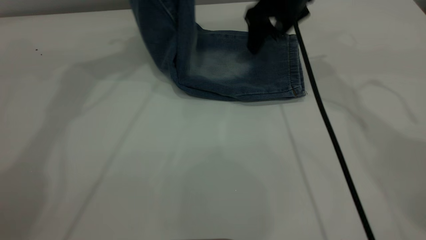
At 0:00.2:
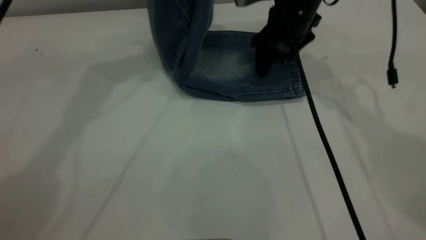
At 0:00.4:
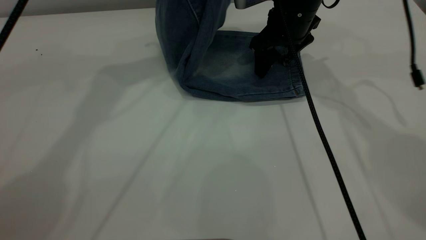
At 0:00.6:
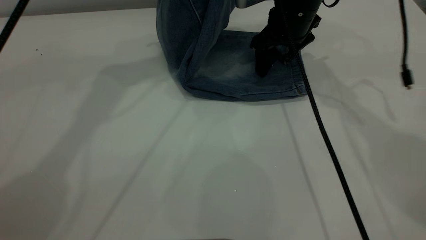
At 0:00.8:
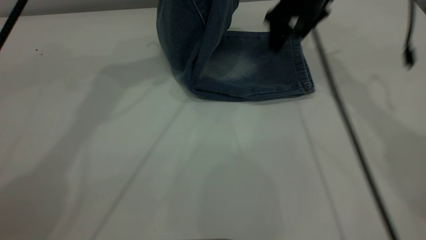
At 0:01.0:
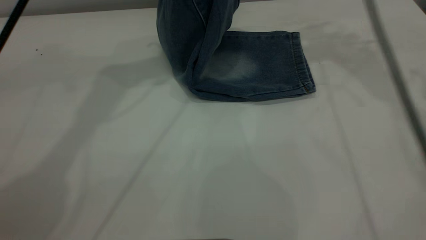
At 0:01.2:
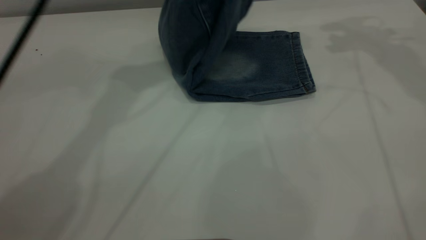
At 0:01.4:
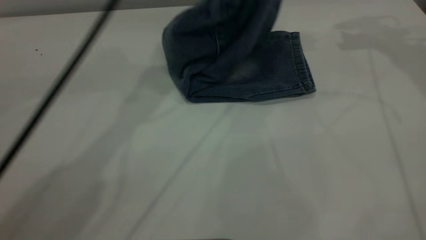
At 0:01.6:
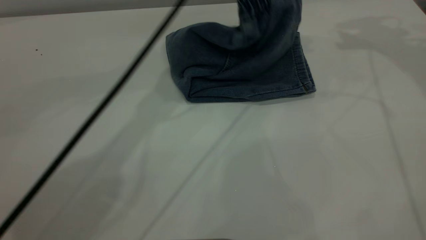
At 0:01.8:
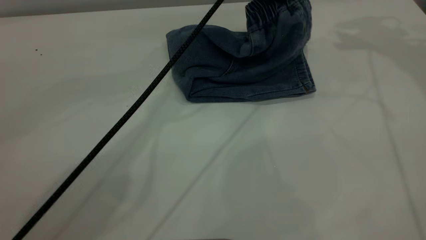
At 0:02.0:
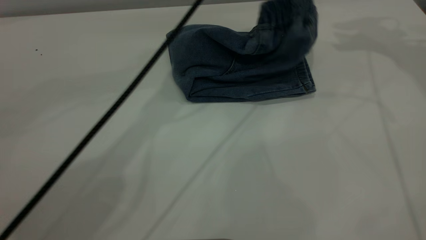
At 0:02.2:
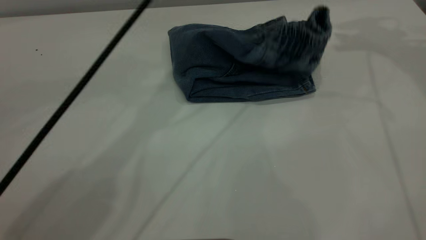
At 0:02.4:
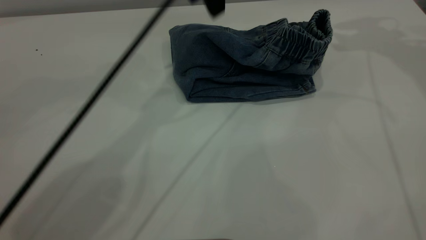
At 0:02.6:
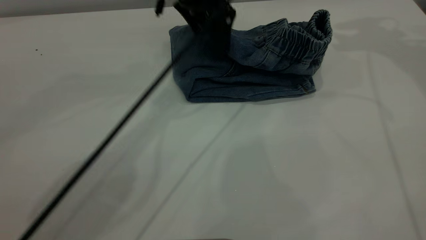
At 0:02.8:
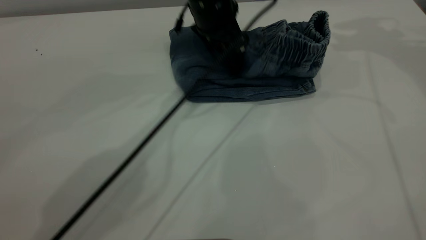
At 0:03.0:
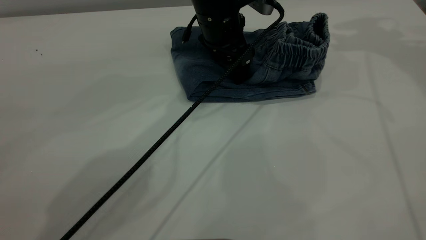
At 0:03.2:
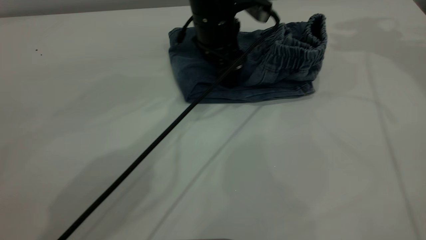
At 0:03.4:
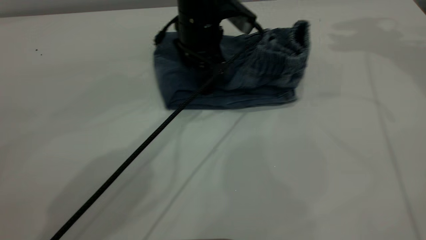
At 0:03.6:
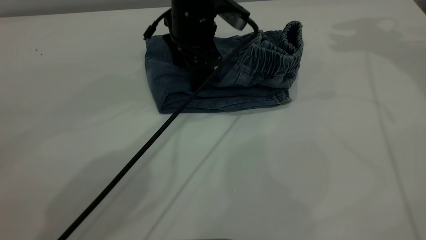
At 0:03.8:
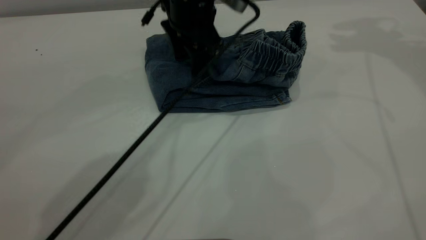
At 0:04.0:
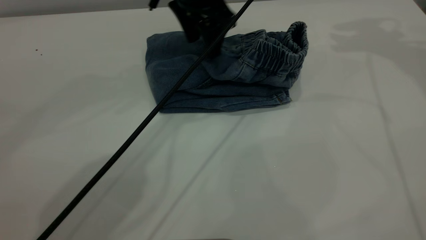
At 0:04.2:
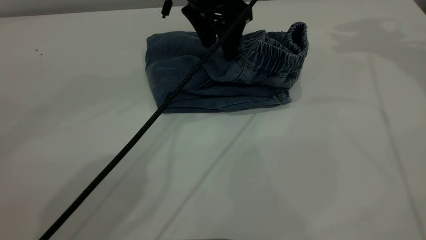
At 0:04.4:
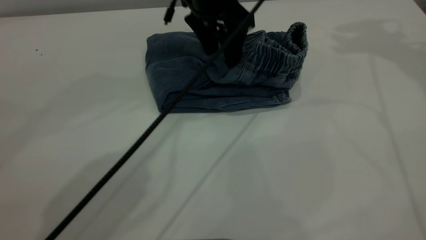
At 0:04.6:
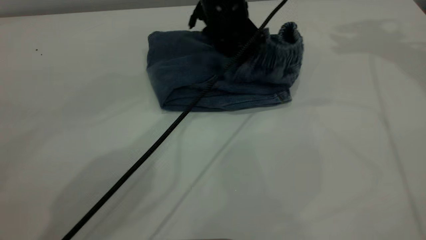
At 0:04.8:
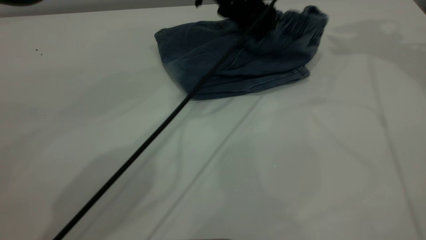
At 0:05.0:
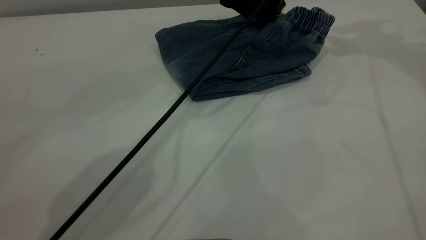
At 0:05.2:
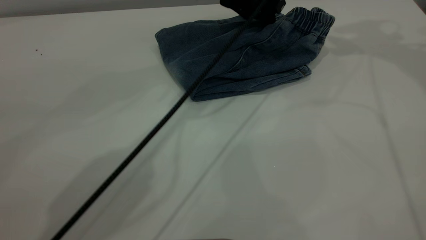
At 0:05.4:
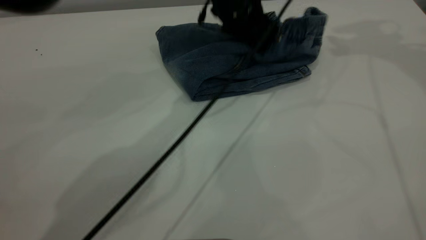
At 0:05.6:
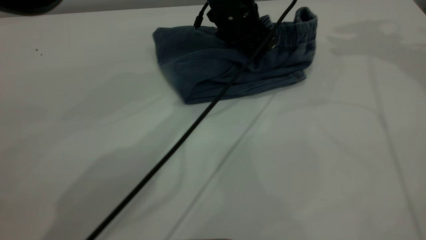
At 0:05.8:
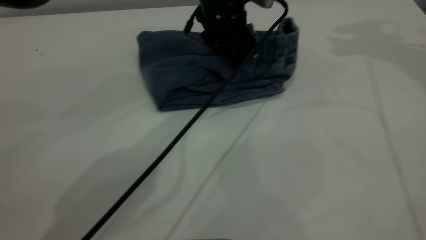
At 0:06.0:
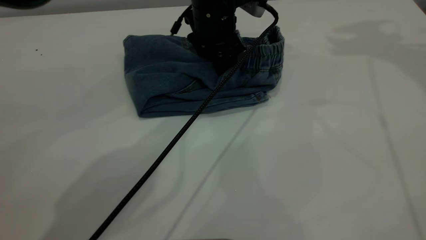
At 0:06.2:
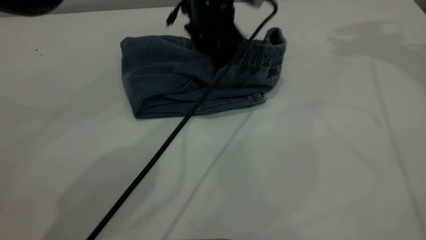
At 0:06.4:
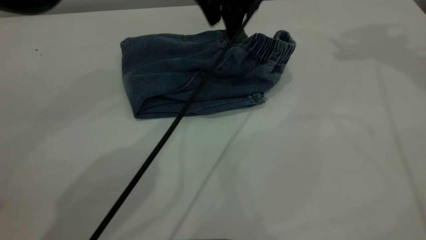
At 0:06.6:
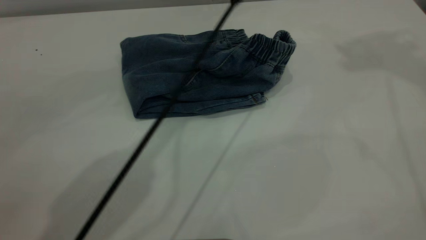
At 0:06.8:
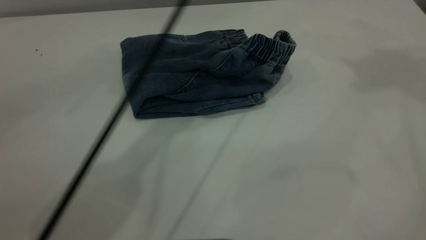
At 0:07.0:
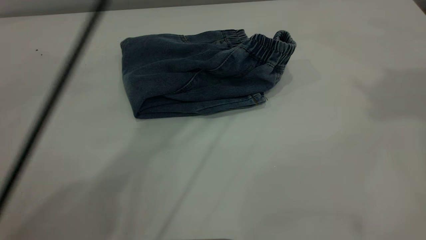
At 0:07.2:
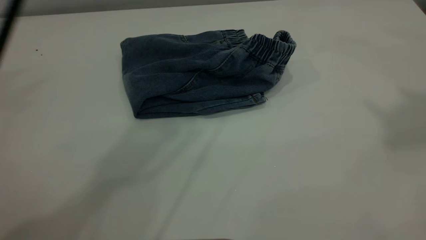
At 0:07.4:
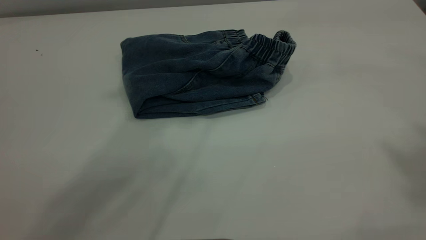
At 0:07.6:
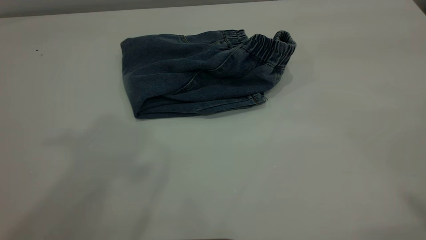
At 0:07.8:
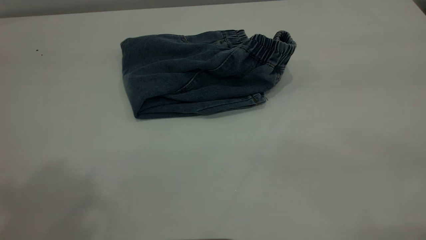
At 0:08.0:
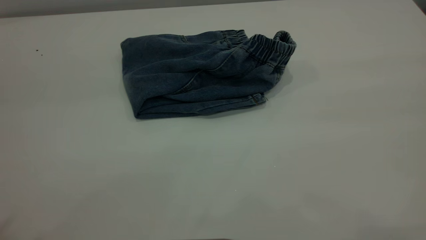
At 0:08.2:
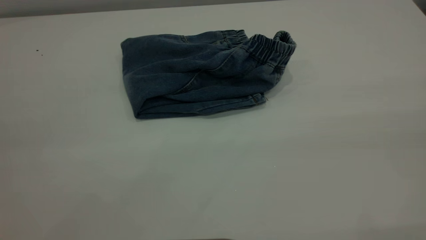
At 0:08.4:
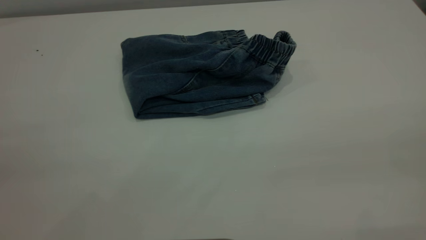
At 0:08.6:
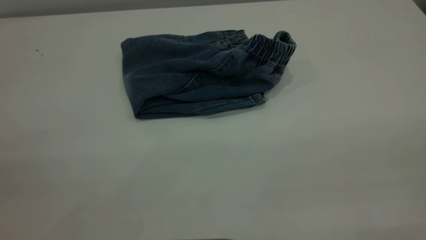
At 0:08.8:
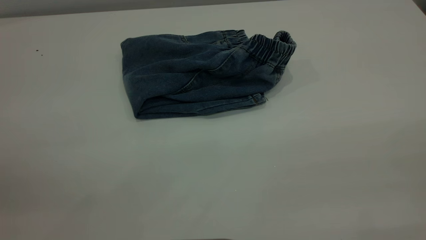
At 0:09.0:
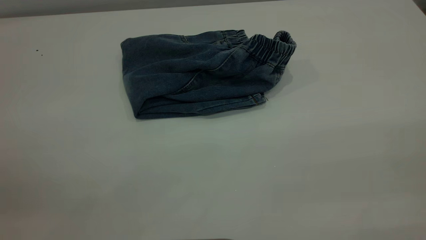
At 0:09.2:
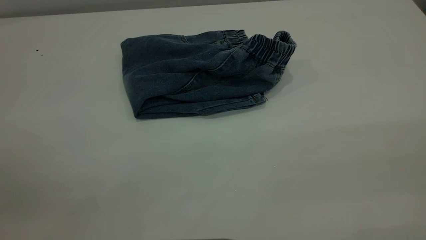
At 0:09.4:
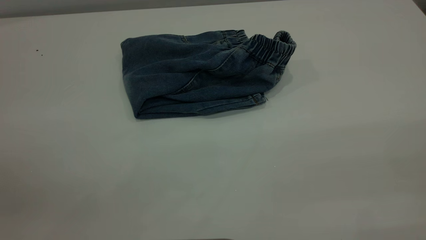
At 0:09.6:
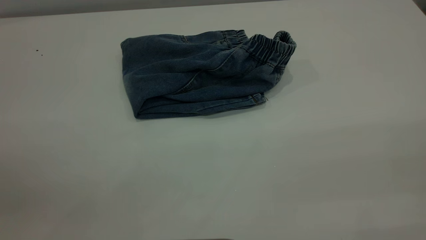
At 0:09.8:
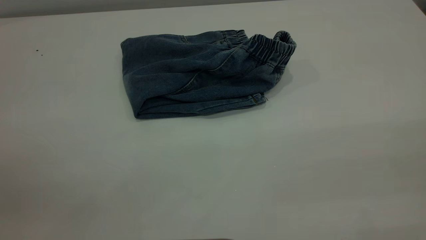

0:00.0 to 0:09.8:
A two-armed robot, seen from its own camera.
Step, 0:00.0 to 0:02.2: Fold the pants from left to right.
0:00.0 to 0:01.4: The right gripper heads to the right and upward, covering approximately 25 cm; the left gripper travels to the right and downward by some 15 cm.
0:01.4 to 0:02.8: The left gripper moves up and down over some 15 cm, changing direction 2 times, and opens its fingers.
0:02.8 to 0:04.2: The left gripper is displaced upward by about 5 cm.
0:04.2 to 0:05.6: The left gripper moves downward, about 5 cm.
0:05.6 to 0:07.0: The left gripper is displaced upward by some 30 cm. The right gripper is displaced upward and backward by approximately 25 cm.
0:07.0 to 0:08.4: The left gripper shifts some 50 cm backward and to the left.

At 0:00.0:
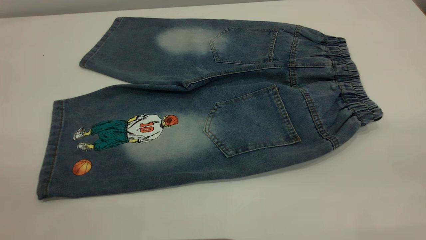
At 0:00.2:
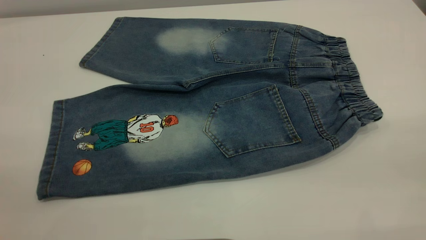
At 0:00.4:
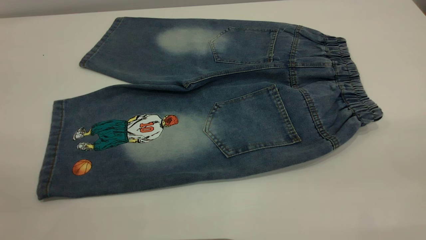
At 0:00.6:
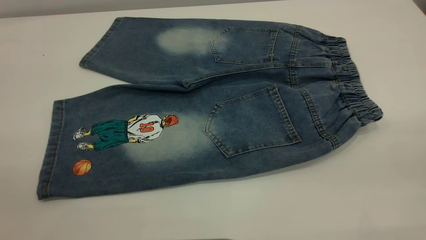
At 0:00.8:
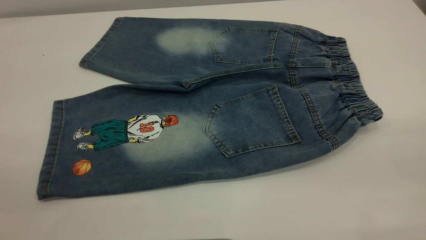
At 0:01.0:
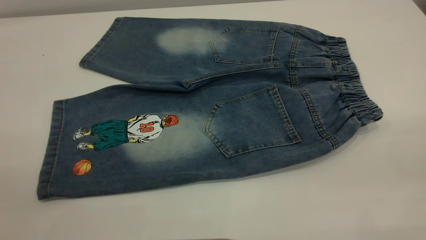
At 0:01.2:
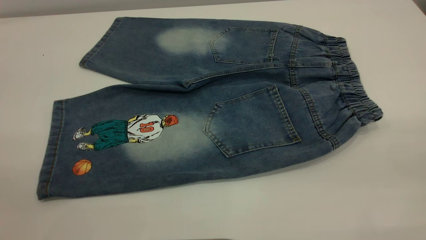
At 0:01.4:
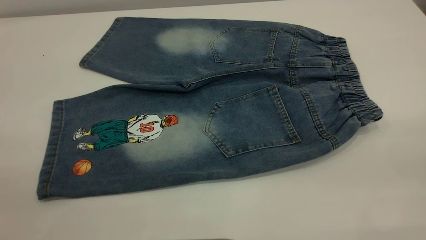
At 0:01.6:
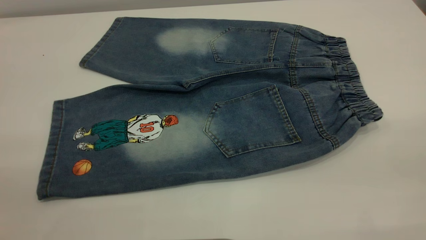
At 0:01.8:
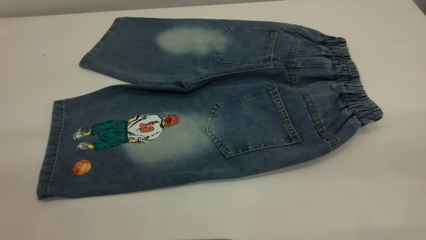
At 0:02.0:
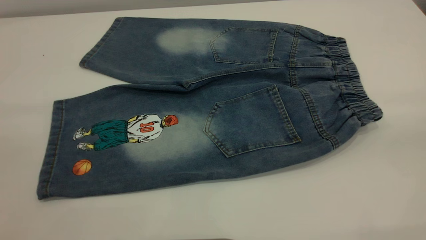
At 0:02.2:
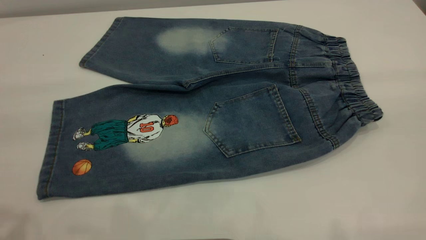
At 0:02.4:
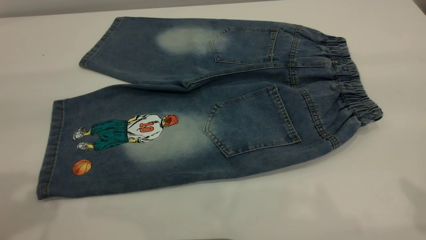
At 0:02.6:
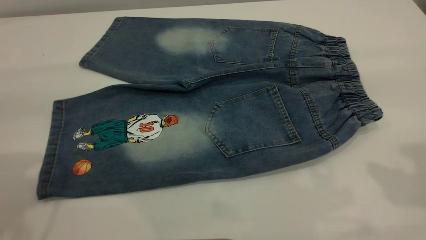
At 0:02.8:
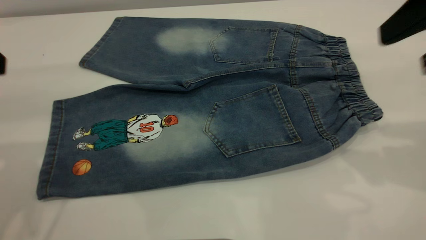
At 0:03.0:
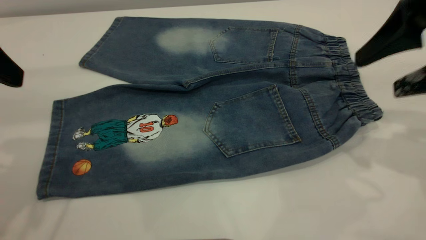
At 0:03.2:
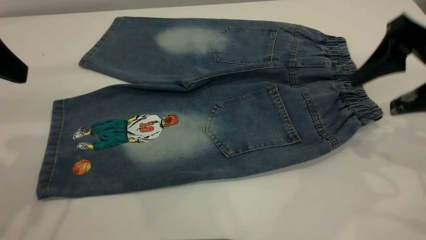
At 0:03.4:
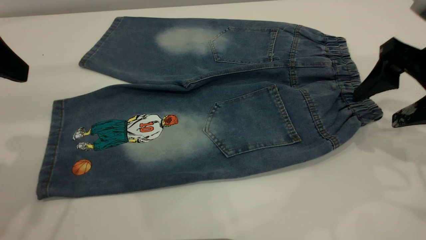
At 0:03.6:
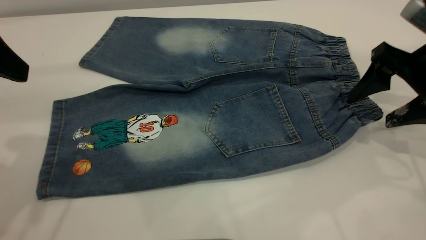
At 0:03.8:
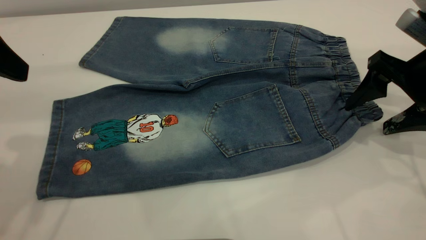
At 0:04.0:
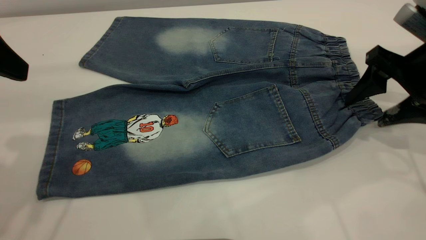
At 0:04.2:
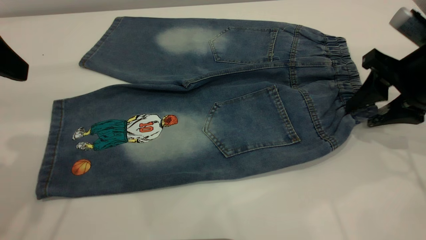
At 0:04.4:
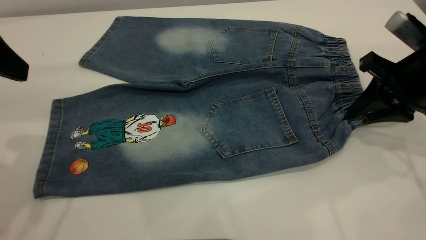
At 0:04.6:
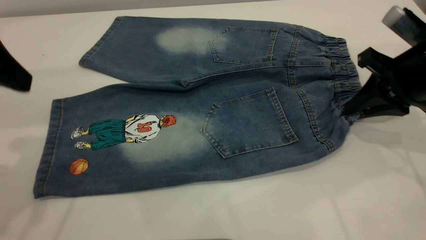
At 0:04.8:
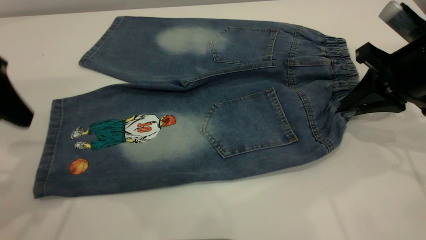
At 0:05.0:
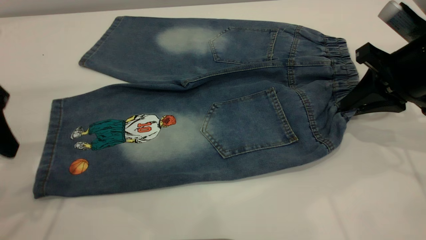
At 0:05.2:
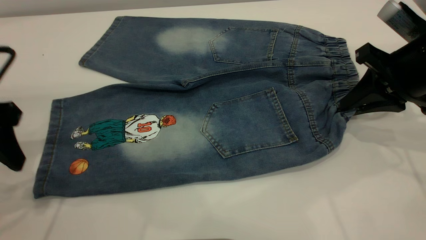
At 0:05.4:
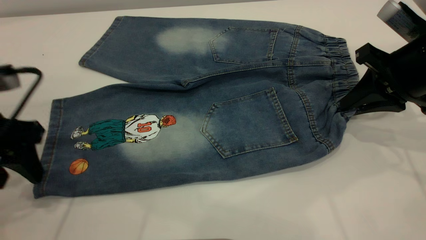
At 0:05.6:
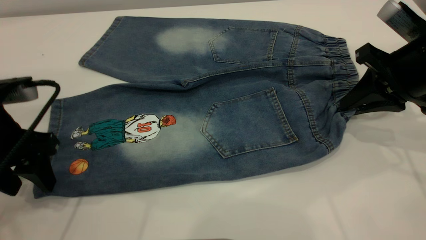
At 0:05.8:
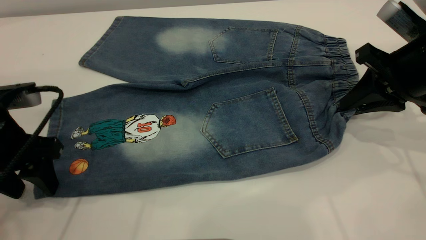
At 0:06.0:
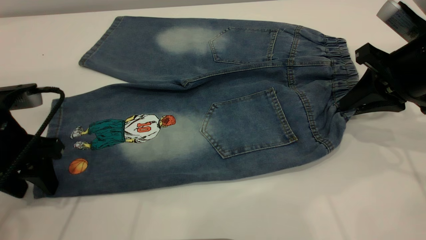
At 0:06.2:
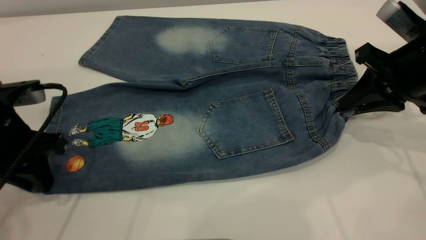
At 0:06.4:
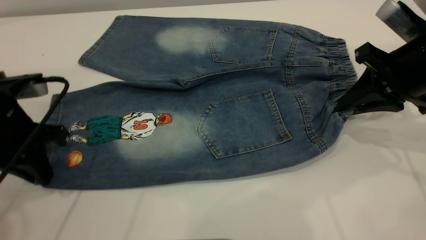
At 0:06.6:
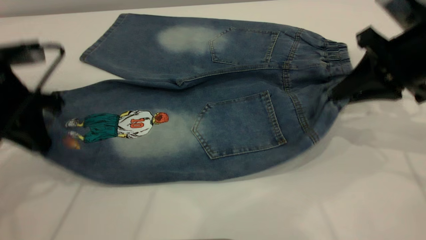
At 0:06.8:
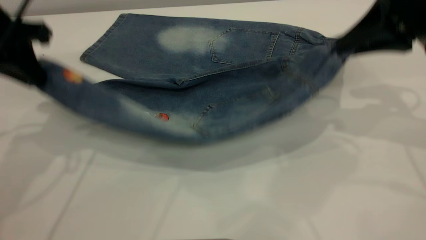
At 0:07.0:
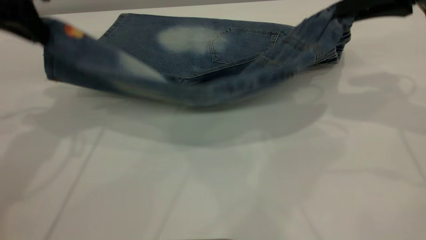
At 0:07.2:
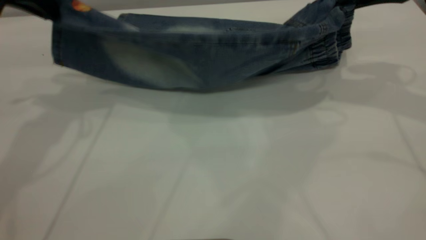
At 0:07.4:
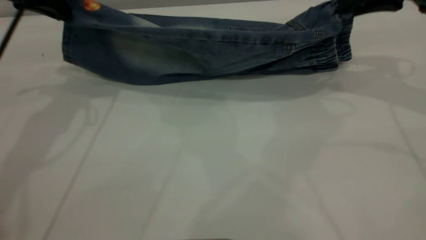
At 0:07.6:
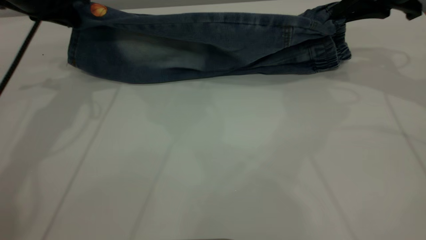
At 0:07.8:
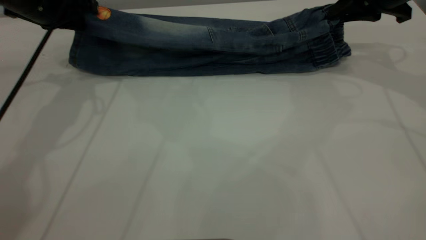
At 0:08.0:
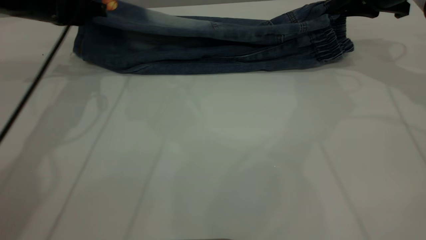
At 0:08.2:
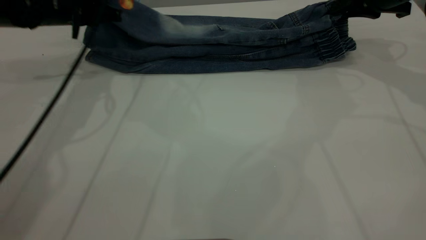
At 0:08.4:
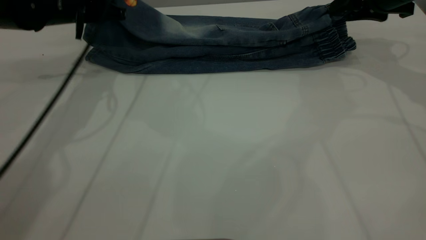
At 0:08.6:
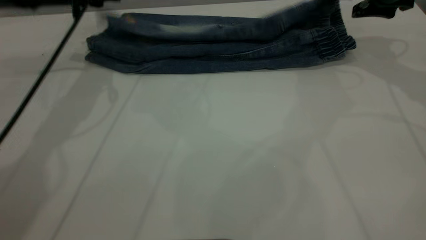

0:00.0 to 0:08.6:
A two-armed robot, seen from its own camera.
0:00.0 to 0:01.4: The two grippers keep their place.
0:01.4 to 0:02.8: The right gripper is displaced forward by about 25 cm.
0:02.8 to 0:04.4: The right gripper goes about 15 cm downward and forward, and closes.
0:04.4 to 0:05.8: The left gripper goes approximately 15 cm downward.
0:05.8 to 0:07.2: The left gripper shifts roughly 20 cm upward and forward, and closes, while the right gripper is displaced upward and forward by about 15 cm.
0:07.2 to 0:08.6: The two grippers go approximately 10 cm forward and downward. The left gripper opens its fingers, while the right gripper opens up.
